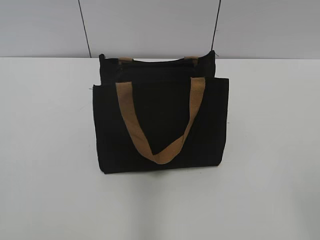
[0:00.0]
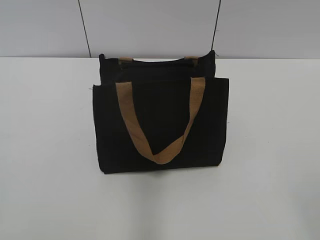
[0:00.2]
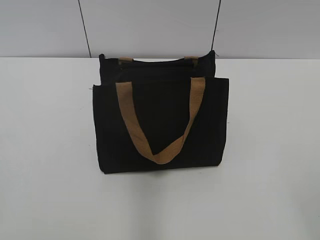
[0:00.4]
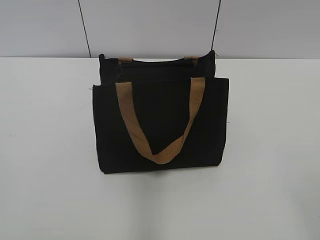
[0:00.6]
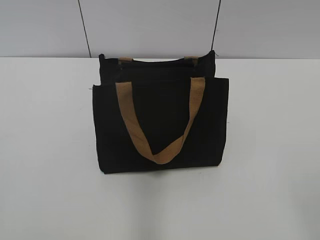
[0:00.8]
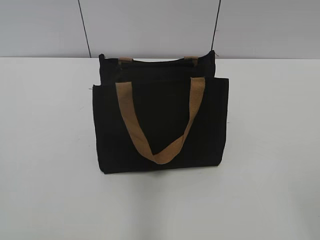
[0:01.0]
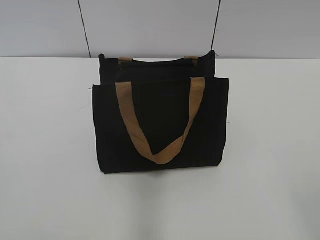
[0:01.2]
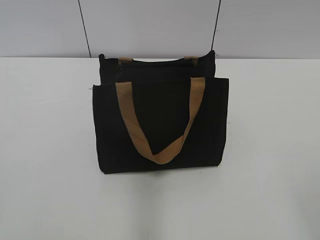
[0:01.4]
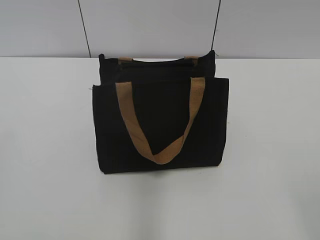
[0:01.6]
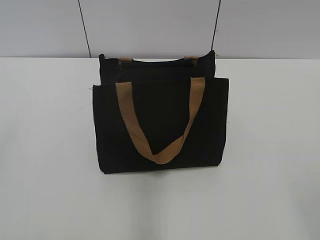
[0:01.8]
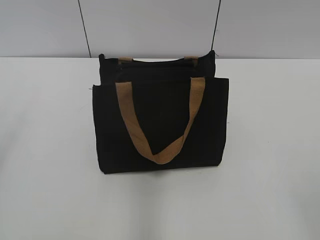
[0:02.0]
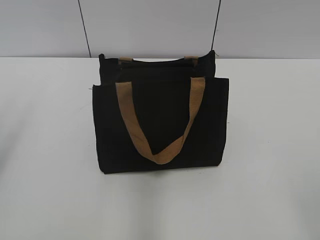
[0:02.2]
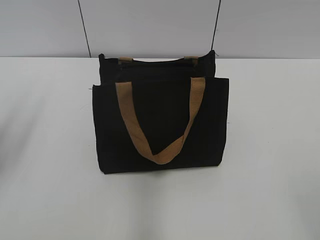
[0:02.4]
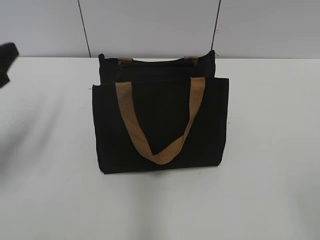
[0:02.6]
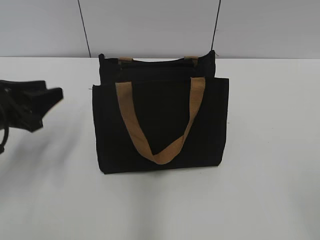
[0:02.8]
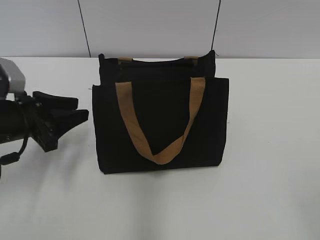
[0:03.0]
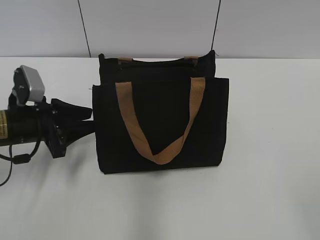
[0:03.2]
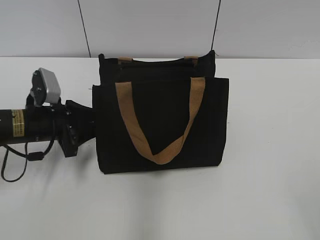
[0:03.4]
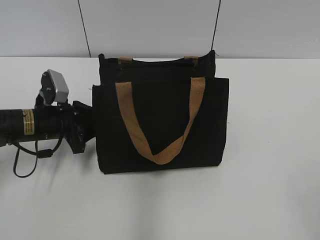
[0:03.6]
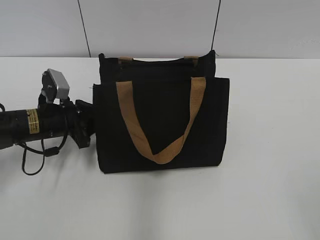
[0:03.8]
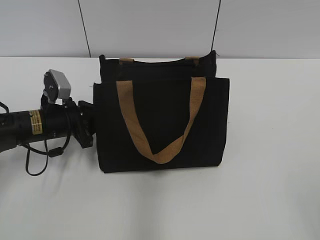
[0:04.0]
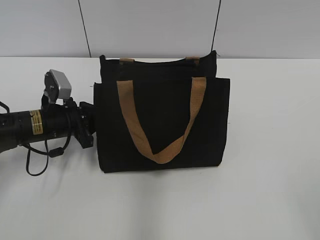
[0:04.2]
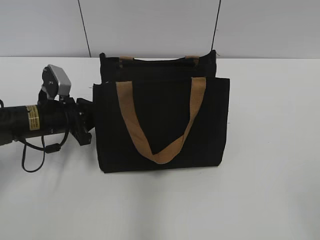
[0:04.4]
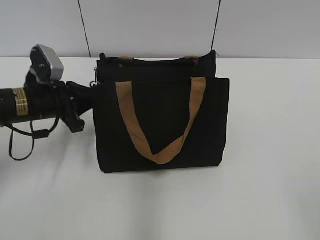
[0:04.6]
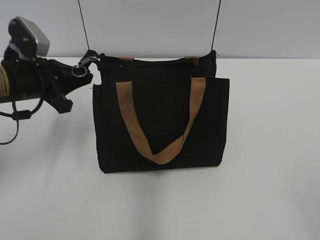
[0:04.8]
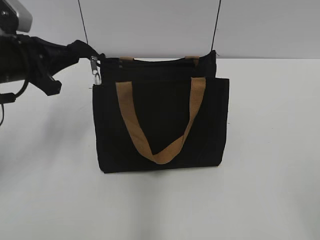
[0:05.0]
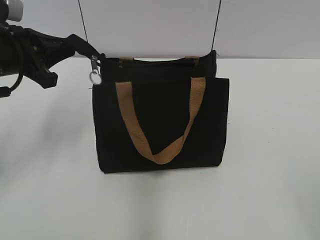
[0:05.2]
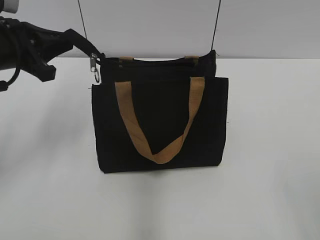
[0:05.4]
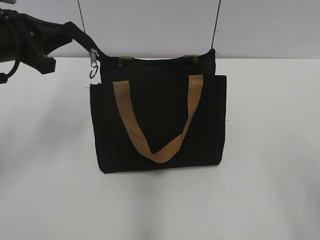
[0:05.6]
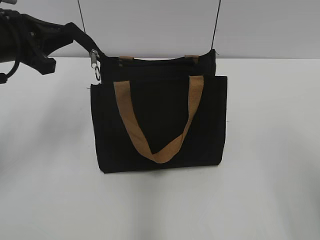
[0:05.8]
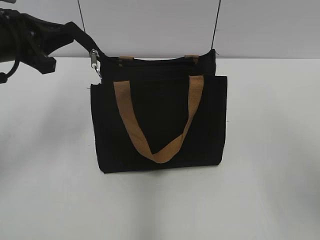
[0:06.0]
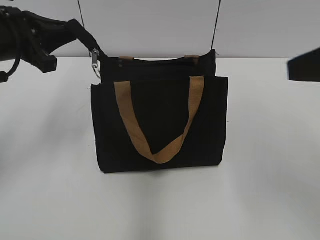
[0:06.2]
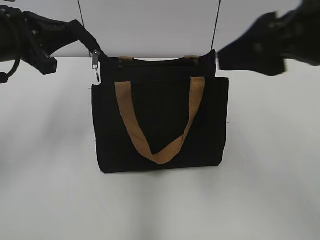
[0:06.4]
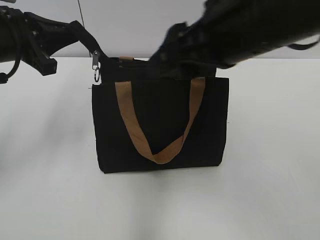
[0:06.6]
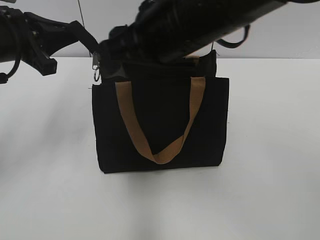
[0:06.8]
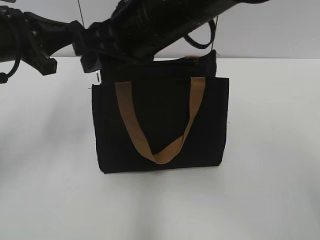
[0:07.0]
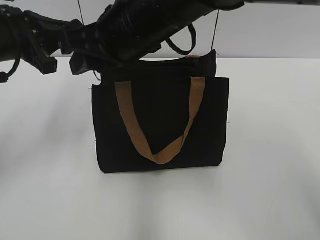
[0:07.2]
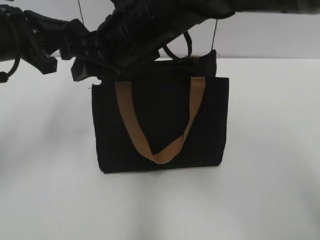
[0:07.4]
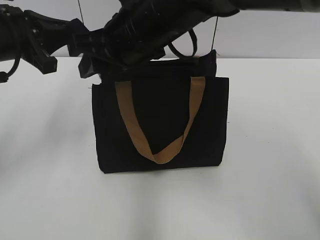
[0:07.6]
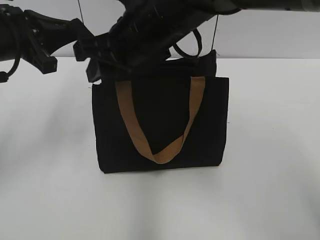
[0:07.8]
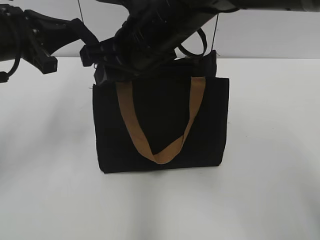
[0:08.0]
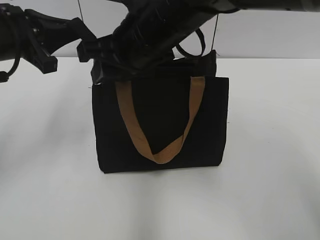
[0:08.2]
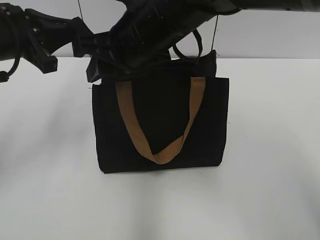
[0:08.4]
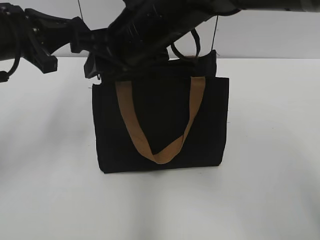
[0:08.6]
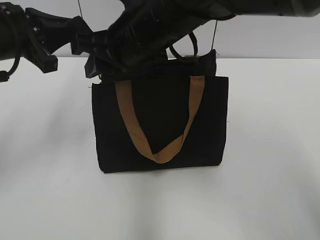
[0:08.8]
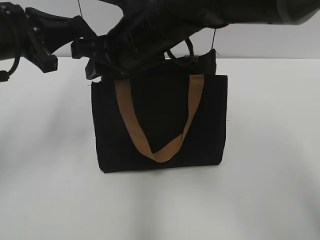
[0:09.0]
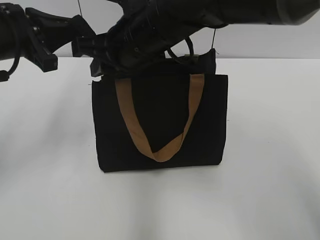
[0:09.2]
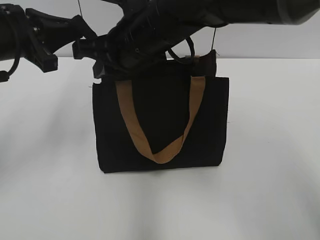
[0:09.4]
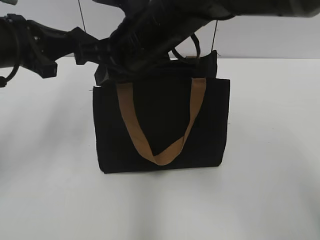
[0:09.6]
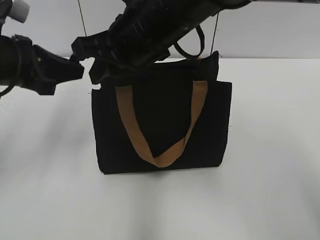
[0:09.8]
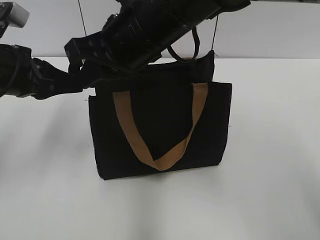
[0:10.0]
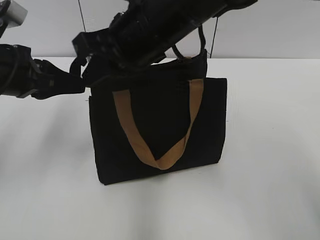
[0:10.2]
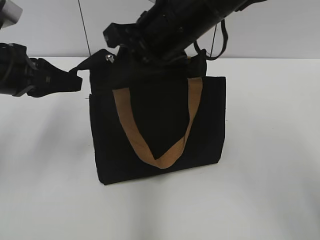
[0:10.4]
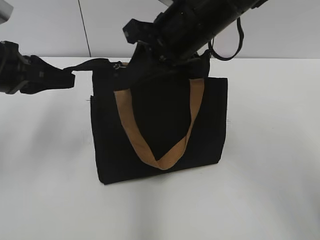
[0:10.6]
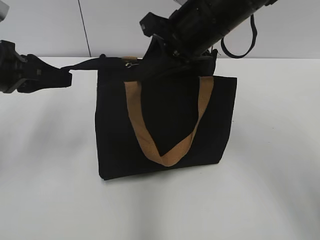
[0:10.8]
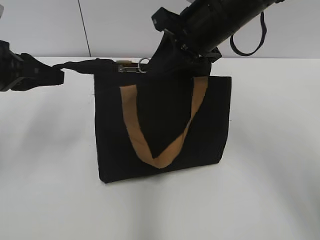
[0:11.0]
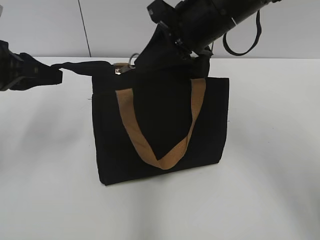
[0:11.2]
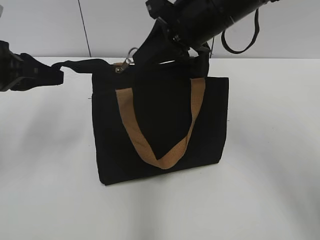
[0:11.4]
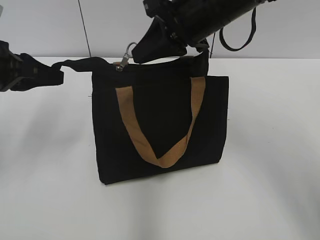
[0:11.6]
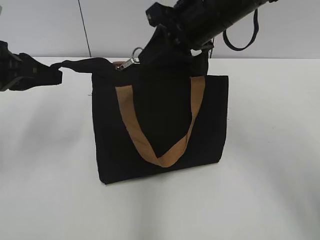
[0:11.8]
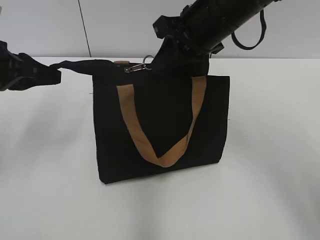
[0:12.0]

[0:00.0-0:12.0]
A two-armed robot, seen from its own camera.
0:01.6 to 0:03.0: The left gripper travels forward and downward by some 30 cm.
0:03.0 to 0:04.4: The left gripper moves forward and downward, some 10 cm, and closes its fingers.
0:04.4 to 0:06.0: The left gripper heads upward, covering approximately 15 cm, while the right gripper travels forward and upward by about 15 cm.
0:06.0 to 0:07.6: The right gripper is displaced to the left and forward by roughly 35 cm.
0:07.6 to 0:09.0: There are only small adjustments of the grippers.
0:09.0 to 0:10.4: The right gripper closes up.
0:10.4 to 0:12.0: The right gripper goes roughly 5 cm to the right.

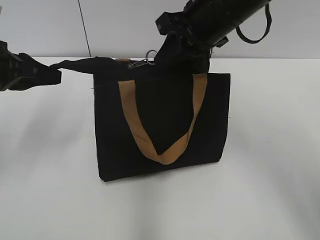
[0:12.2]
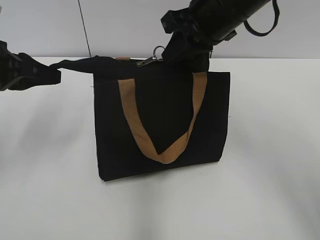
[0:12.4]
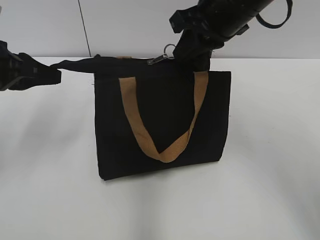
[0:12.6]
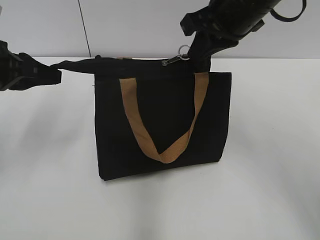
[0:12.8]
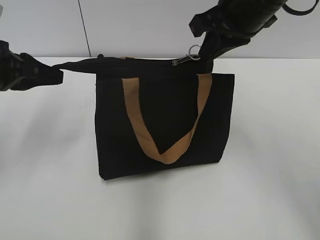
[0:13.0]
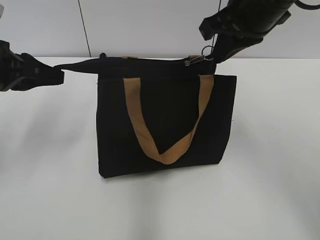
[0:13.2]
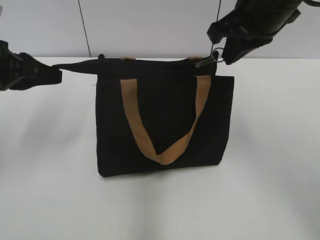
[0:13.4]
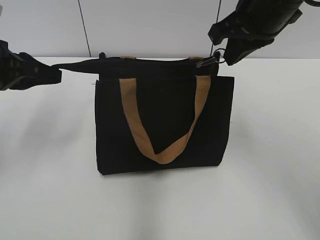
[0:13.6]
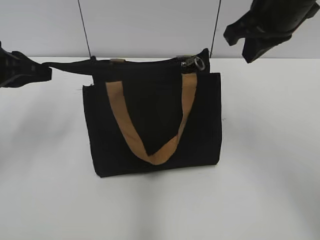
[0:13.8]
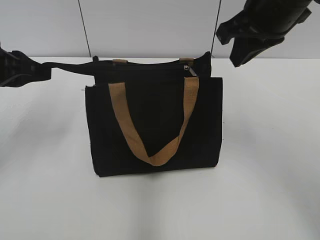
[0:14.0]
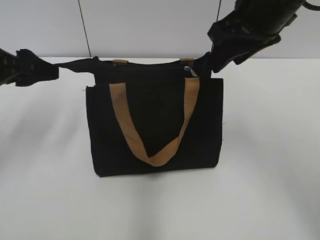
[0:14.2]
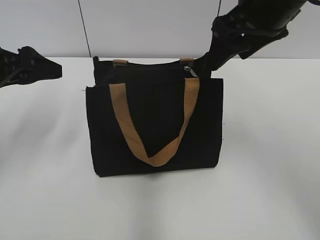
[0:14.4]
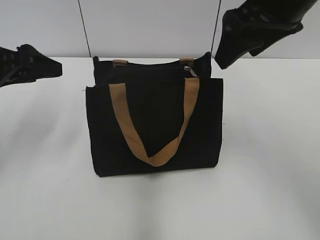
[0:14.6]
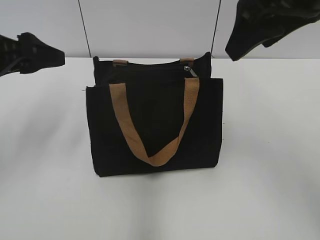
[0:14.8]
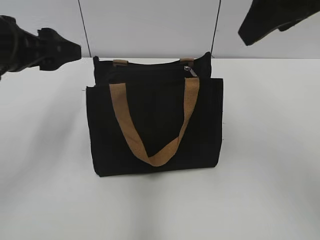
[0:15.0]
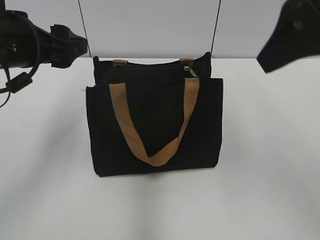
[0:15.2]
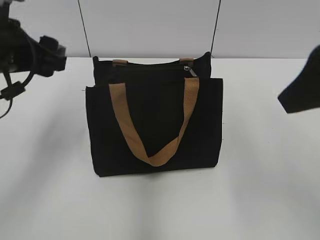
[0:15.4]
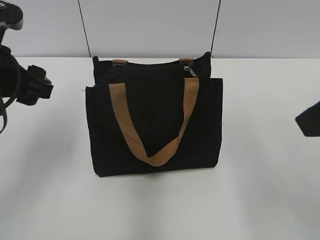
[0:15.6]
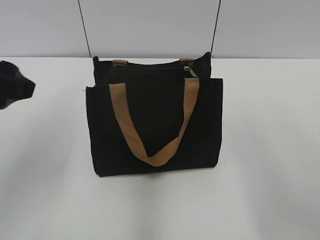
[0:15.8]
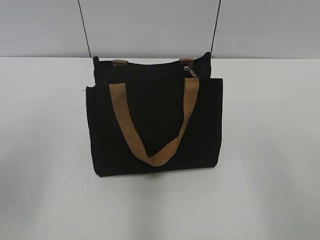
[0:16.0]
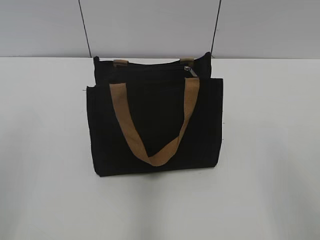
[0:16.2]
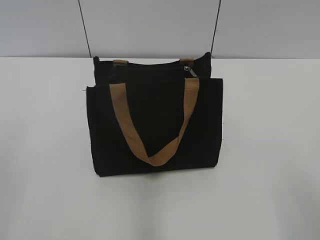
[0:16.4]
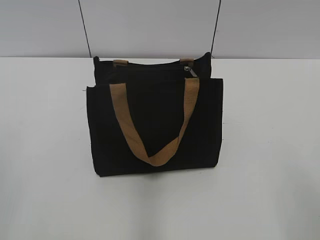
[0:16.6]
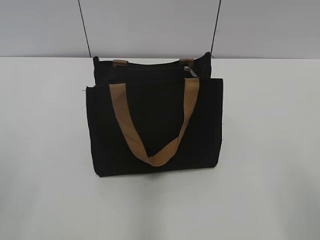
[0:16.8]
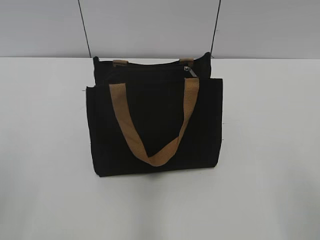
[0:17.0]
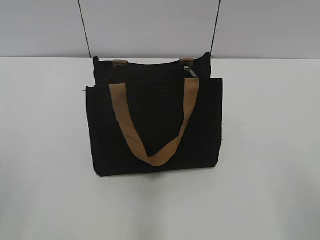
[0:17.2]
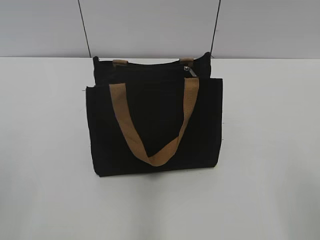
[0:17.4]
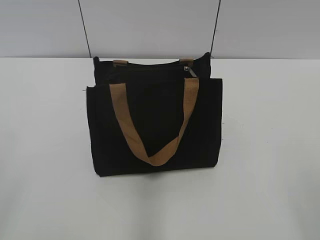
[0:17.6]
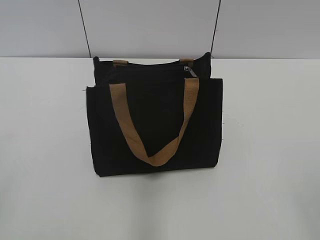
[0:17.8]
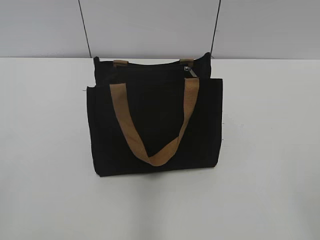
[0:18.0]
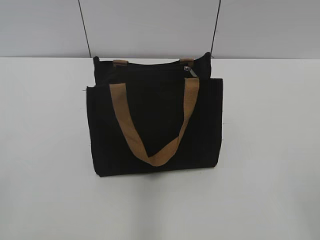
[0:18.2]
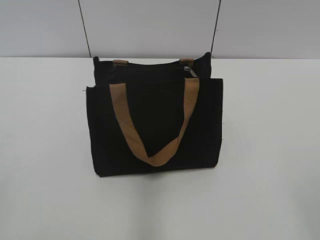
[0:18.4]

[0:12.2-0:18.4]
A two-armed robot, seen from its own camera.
Step, 0:13.8 to 0:14.2: Grab the zipper with your left hand.
0:12.2 to 0:13.8: The right gripper shifts approximately 5 cm to the right.
0:13.8 to 0:15.4: The left gripper shifts some 5 cm to the right, and opens up. Meanwhile the right gripper shifts some 15 cm backward, and opens.
0:15.4 to 0:16.8: The right gripper moves backward, downward and to the right, roughly 20 cm; the left gripper travels backward and to the left by roughly 25 cm.

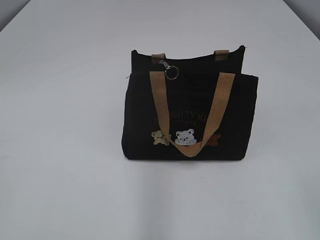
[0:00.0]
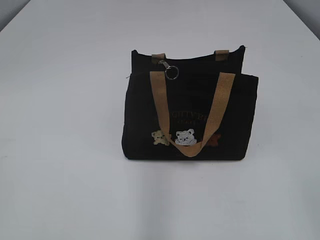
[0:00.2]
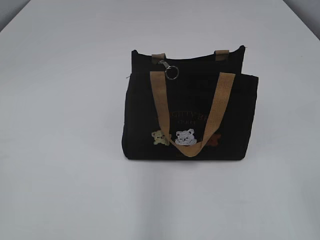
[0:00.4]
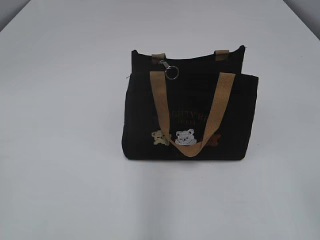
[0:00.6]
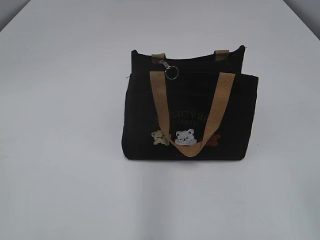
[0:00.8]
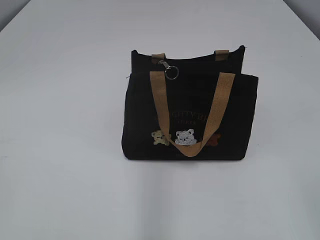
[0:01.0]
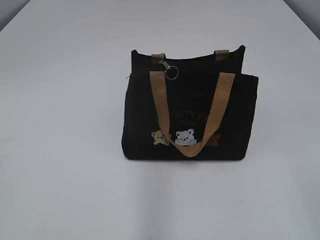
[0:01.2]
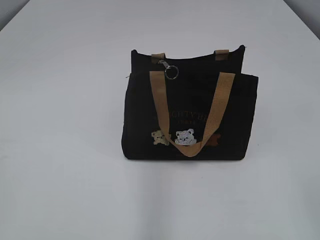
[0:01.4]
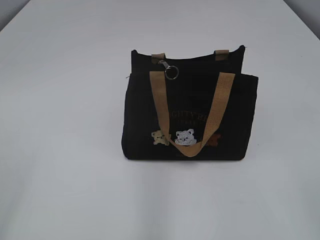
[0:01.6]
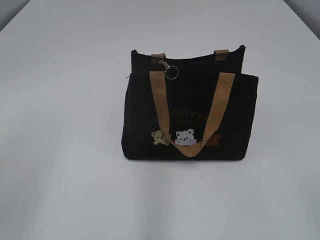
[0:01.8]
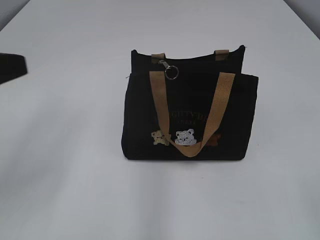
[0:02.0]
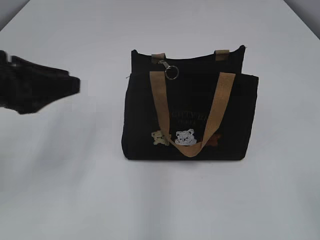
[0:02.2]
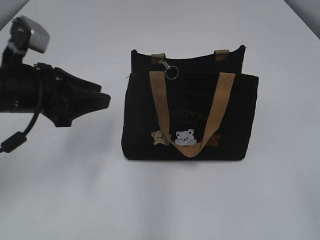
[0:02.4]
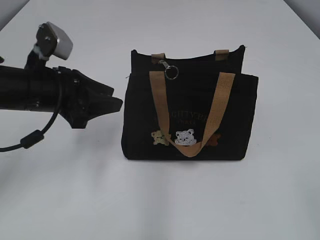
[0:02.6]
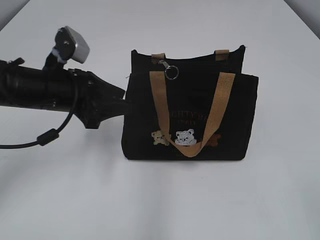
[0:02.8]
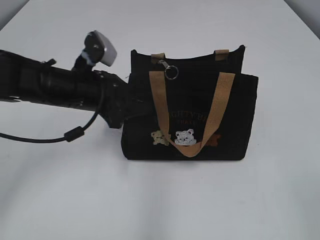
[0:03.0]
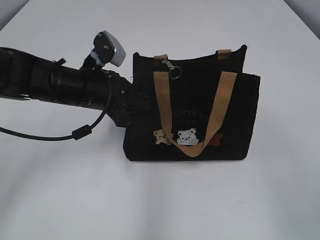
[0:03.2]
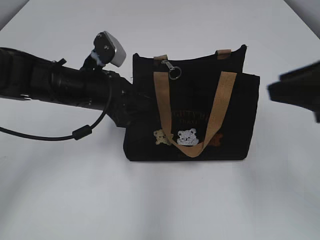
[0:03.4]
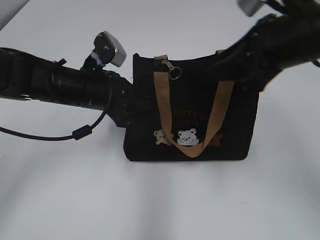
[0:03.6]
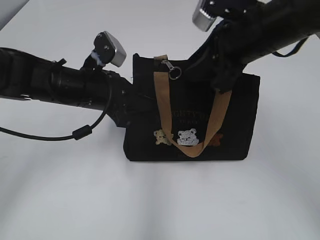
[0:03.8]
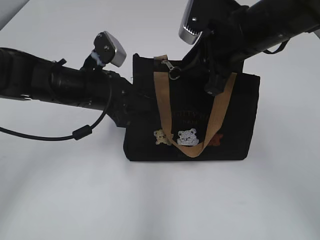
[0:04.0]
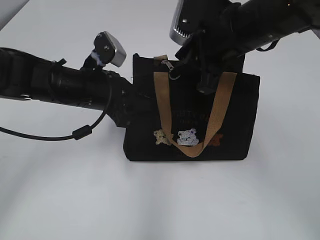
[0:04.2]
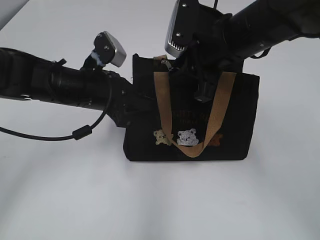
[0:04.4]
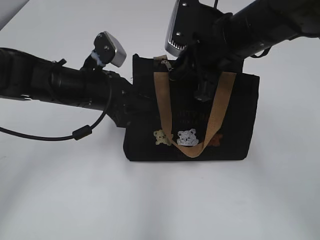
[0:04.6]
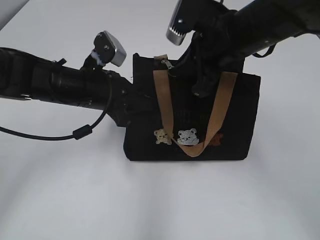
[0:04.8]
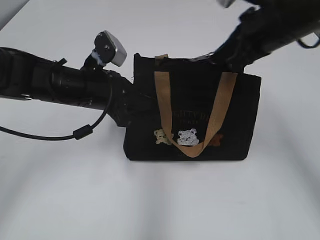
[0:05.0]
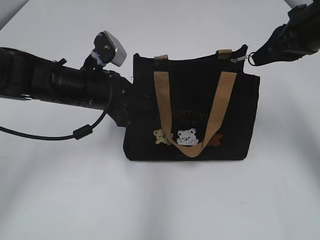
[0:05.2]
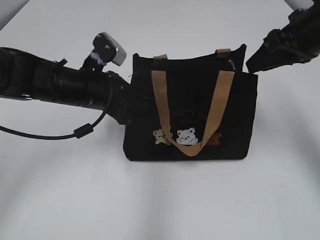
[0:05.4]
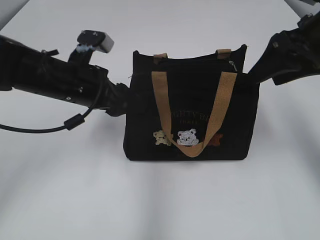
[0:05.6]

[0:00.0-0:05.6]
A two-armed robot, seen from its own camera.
Step, 0:00.0 to 0:05.2: Pull open the zipper with your right hand.
0:01.4 to 0:02.8: The left gripper heads forward and to the right, covering about 35 cm.
0:02.8 to 0:04.2: The left gripper shifts by about 5 cm, and closes its fingers. The right gripper moves forward and to the left, roughly 35 cm.
0:04.2 to 0:05.6: The right gripper travels to the right by approximately 10 cm, and opens, while the left gripper opens.
